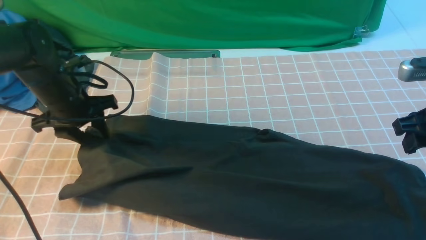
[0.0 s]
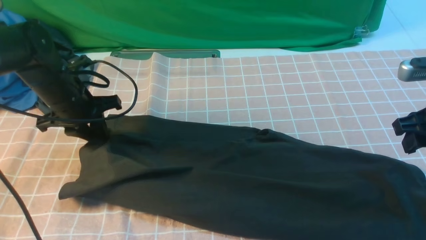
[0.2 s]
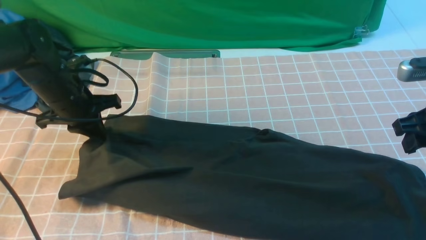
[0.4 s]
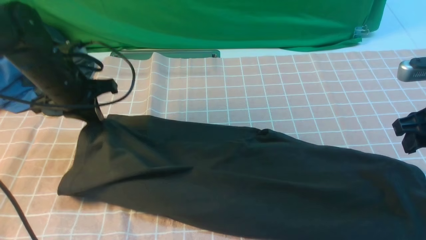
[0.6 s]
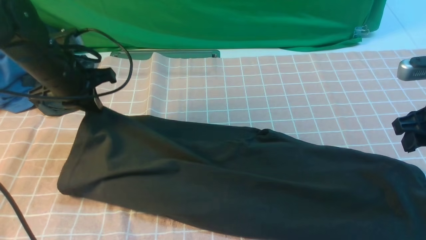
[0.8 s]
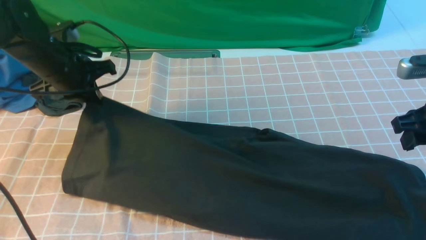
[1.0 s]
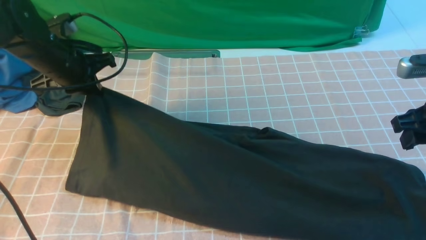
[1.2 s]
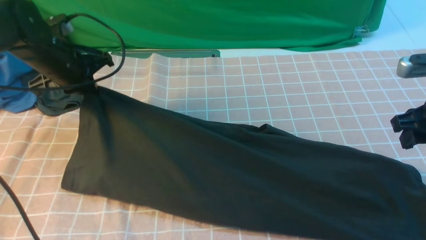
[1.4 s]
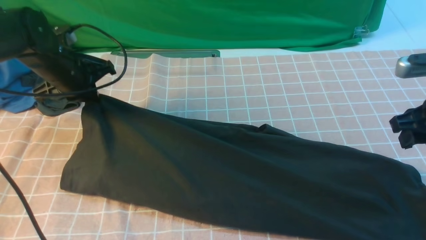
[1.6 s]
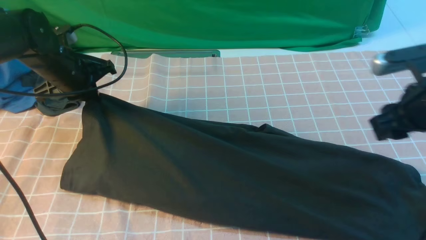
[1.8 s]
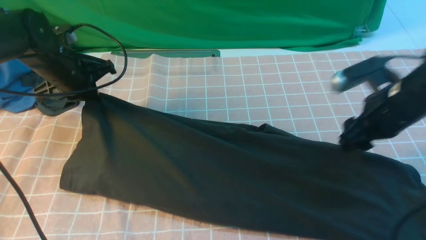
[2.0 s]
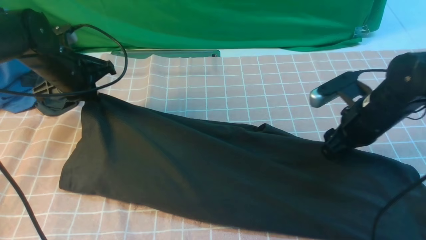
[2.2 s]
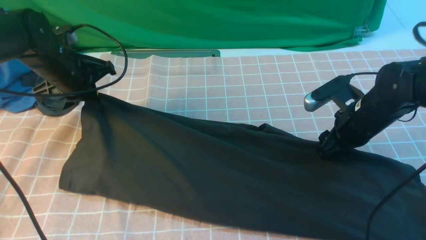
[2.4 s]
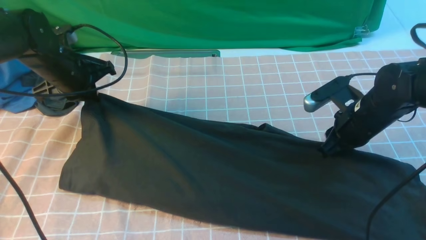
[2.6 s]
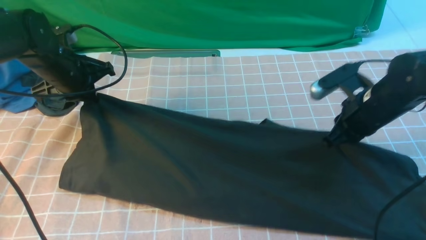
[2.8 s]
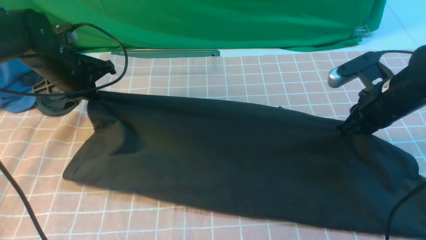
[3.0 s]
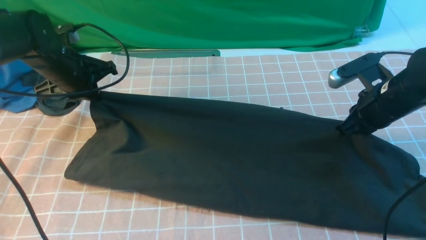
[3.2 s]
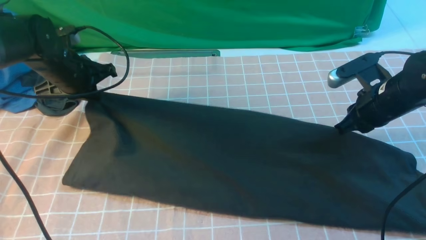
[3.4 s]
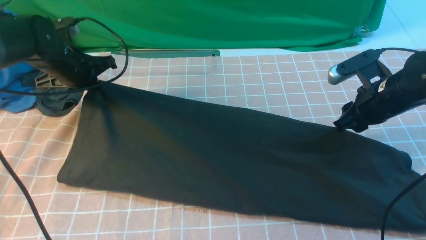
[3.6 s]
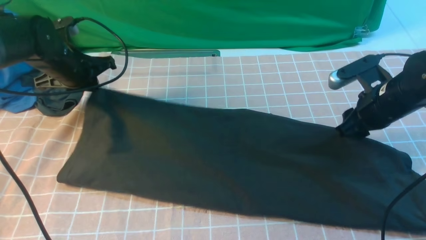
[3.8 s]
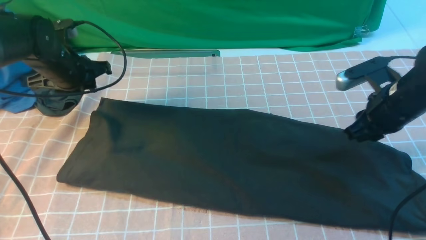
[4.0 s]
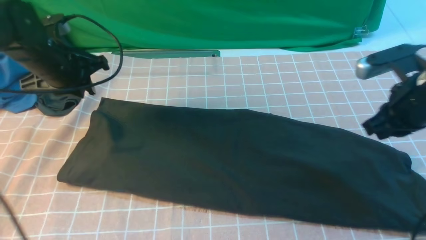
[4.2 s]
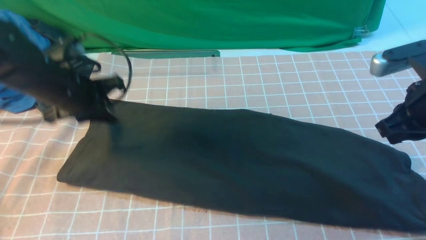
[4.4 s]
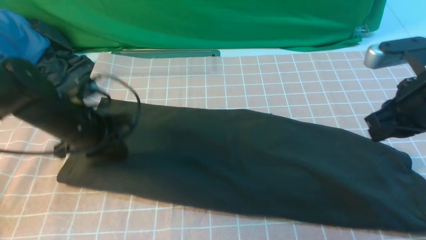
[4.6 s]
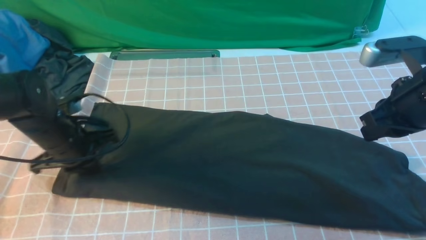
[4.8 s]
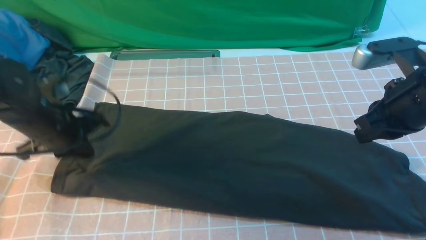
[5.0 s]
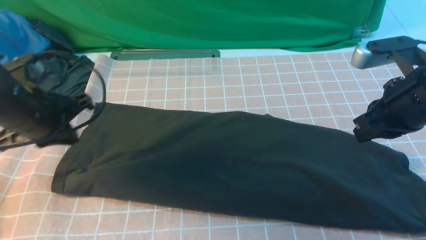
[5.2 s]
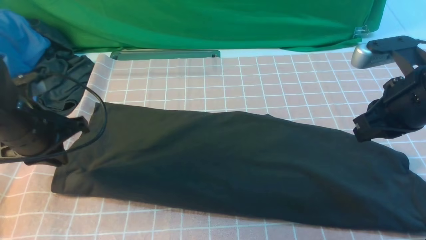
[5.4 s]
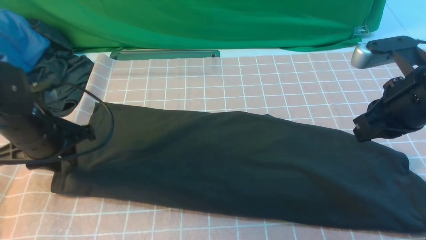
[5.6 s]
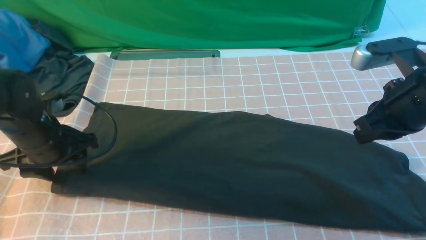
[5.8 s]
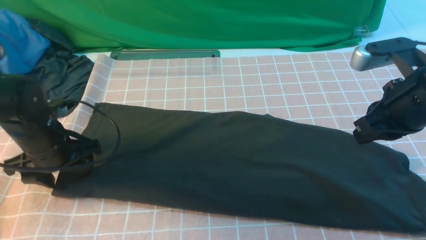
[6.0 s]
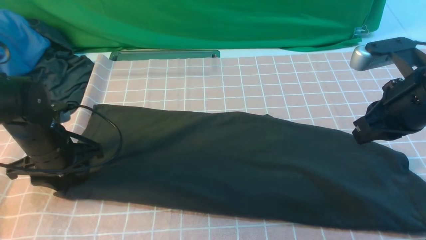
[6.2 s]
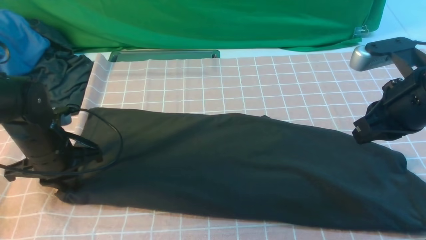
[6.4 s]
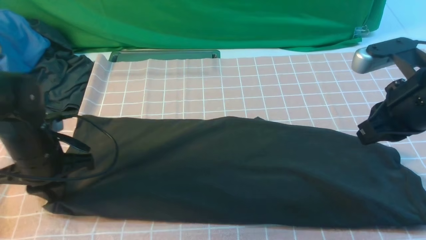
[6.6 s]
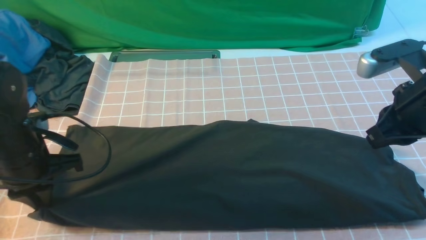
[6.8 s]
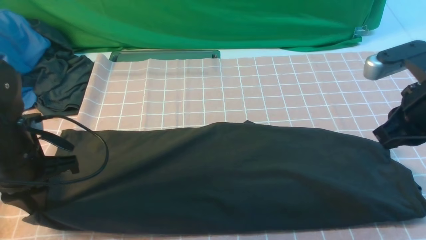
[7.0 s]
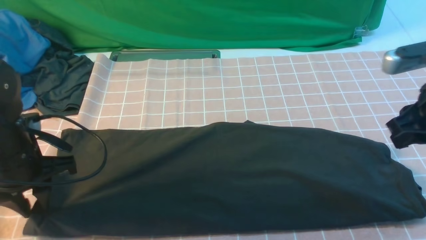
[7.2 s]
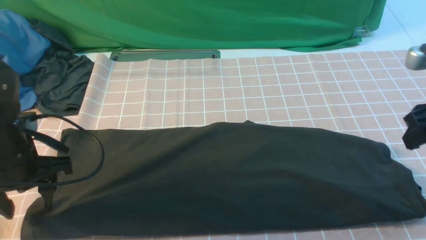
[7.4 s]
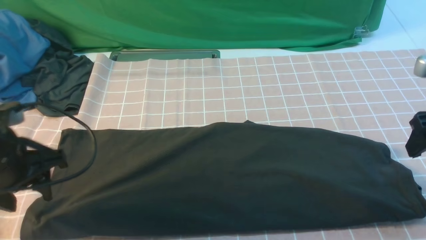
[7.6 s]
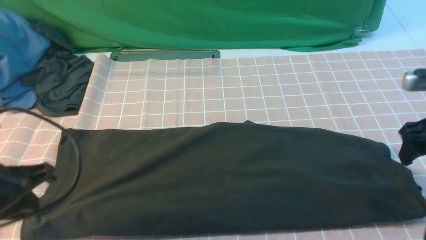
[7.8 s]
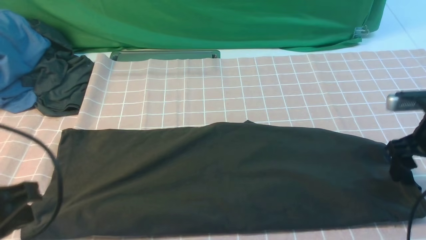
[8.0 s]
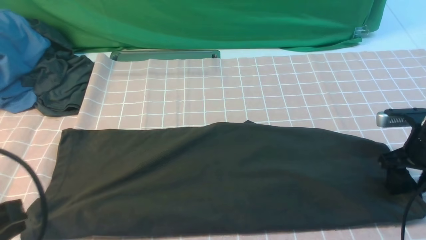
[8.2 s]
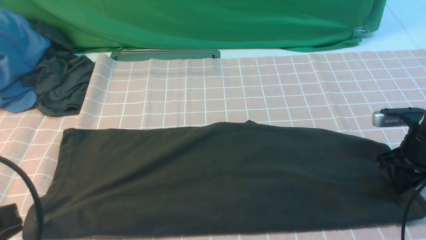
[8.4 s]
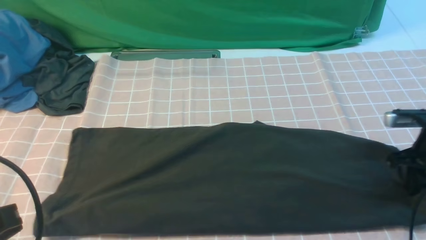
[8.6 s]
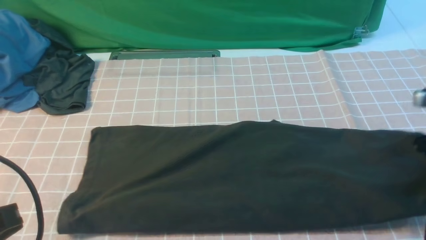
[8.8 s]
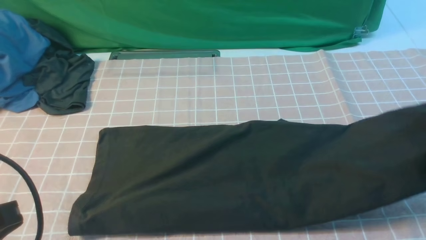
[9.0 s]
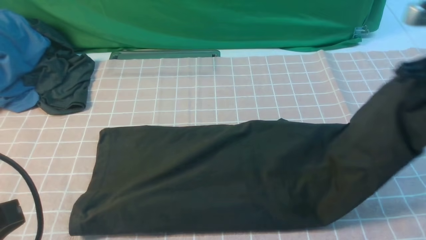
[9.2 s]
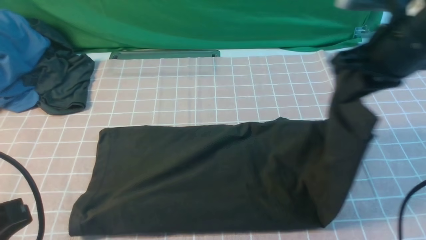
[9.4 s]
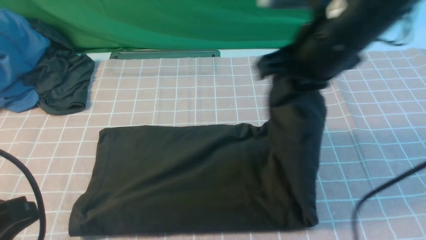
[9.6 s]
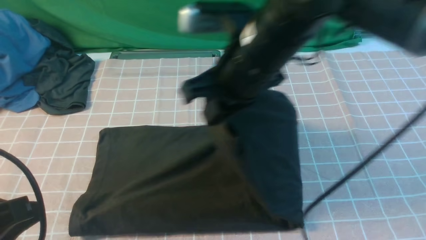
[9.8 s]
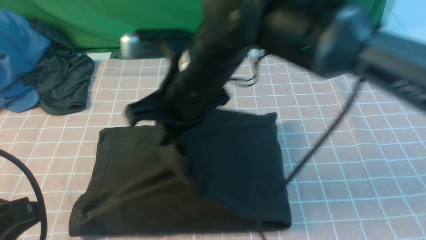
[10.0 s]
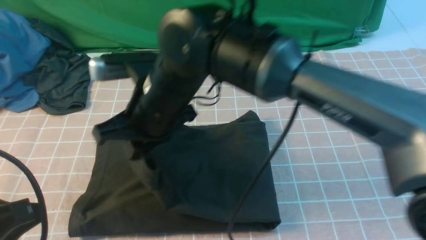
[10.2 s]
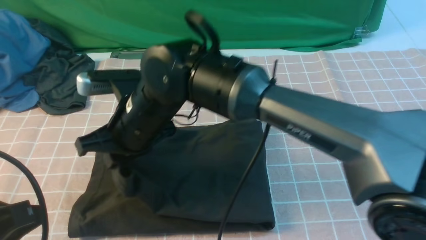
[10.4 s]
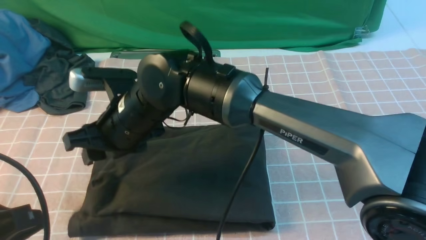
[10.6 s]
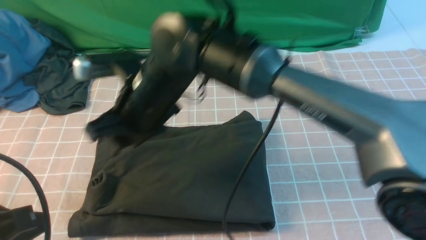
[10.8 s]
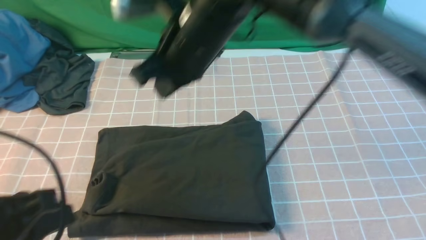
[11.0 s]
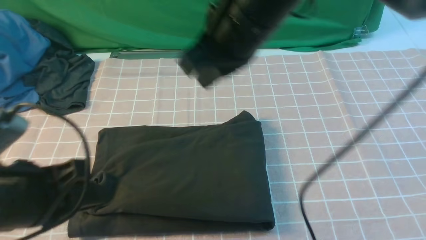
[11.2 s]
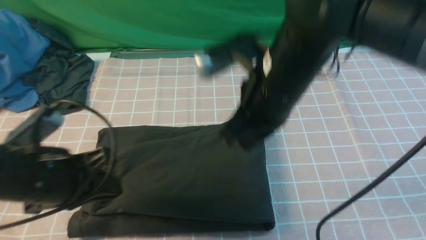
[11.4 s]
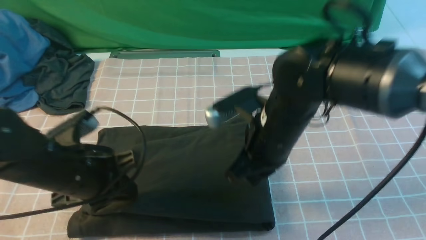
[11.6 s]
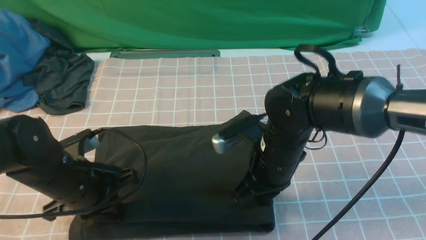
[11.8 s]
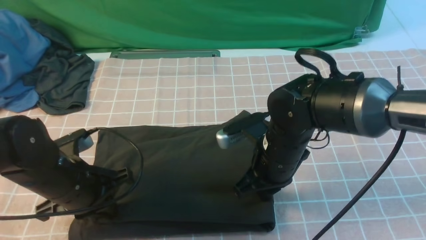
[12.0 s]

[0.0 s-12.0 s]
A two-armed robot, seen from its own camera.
Step, 0.0 to 8.6 s: use the right arm to clamp the right edge of the fabric.
Step, 8.8 to 10.8 s: use the right arm to drag the right edge of the fabric to the left and folds it over the left edge.
0.0 to 1.6 s: The left gripper closes.
1.6 to 3.0 s: The right gripper is displaced forward and downward by roughly 5 cm, and closes up.
3.0 to 4.4 s: The right gripper travels upward and backward by roughly 10 cm, and opens, then closes once more. The left gripper shifts roughly 5 cm backward.
4.4 to 6.0 s: The left gripper shifts by roughly 5 cm, and opens its fingers.
6.0 to 7.6 s: The left gripper goes about 15 cm backward and upward, and closes, then reopens. The right gripper is displaced to the right by approximately 10 cm, and opens up.
7.6 to 9.0 s: The right gripper travels downward and back again, roughly 10 cm each way, and closes up. The left gripper heads backward, covering roughly 15 cm, and closes up.
9.0 to 10.4 s: The right gripper heads to the left, covering roughly 40 cm.
10.4 to 12.0 s: The left gripper is displaced forward and downward by some 20 cm. The right gripper heads to the right, covering about 20 cm, and closes up.

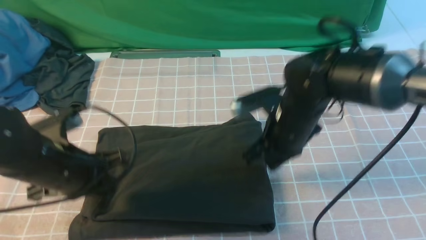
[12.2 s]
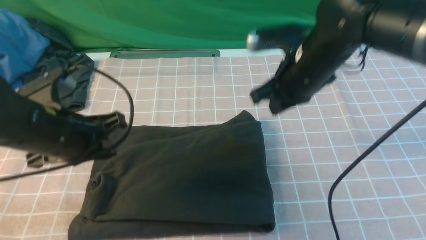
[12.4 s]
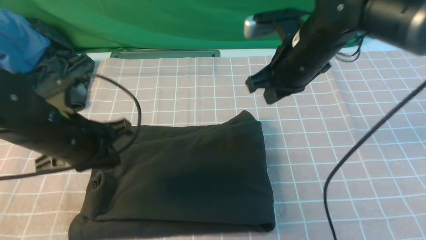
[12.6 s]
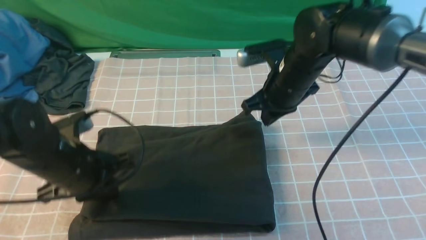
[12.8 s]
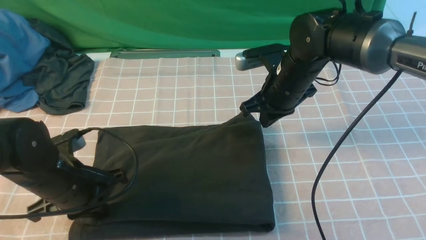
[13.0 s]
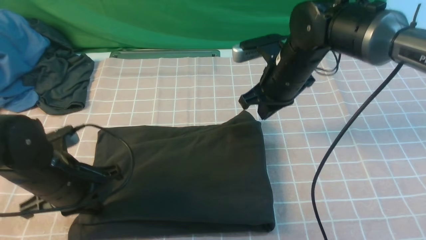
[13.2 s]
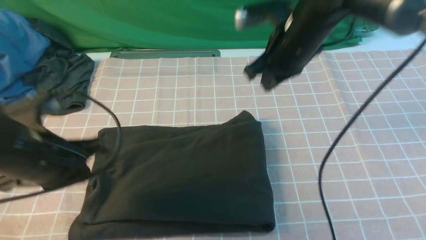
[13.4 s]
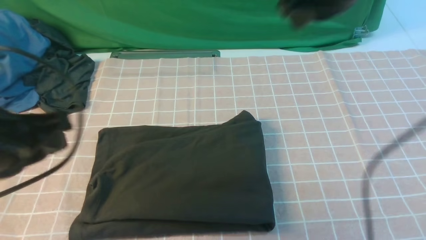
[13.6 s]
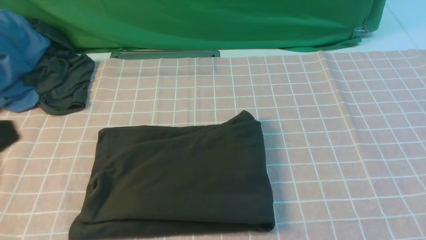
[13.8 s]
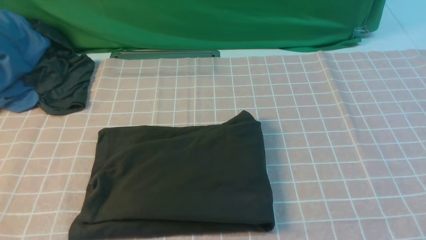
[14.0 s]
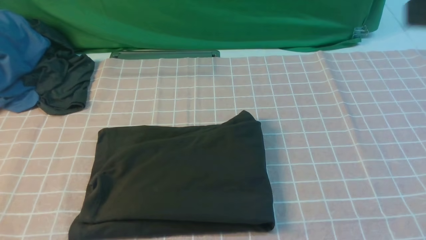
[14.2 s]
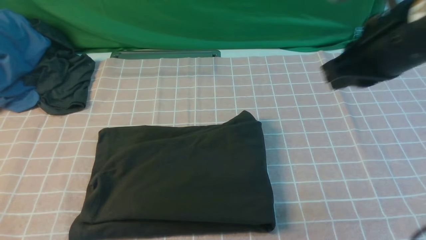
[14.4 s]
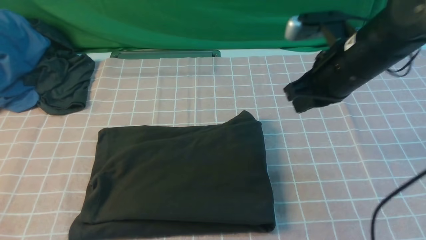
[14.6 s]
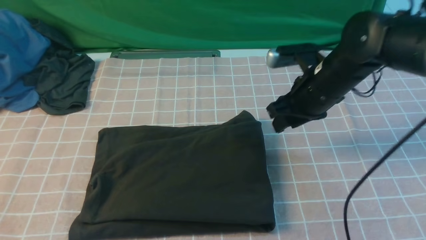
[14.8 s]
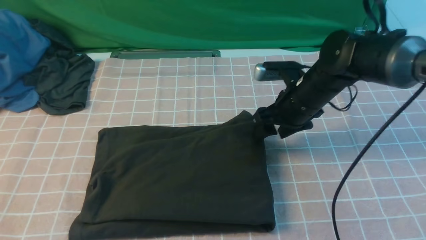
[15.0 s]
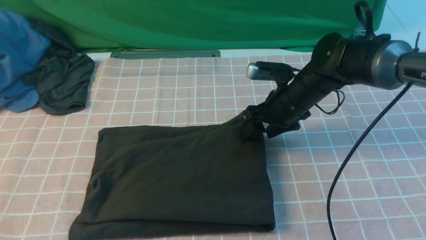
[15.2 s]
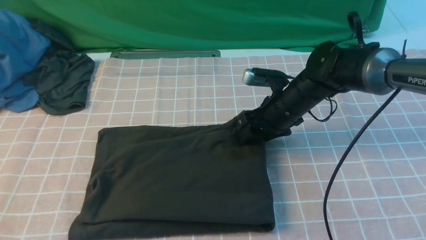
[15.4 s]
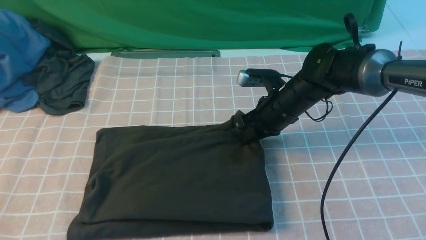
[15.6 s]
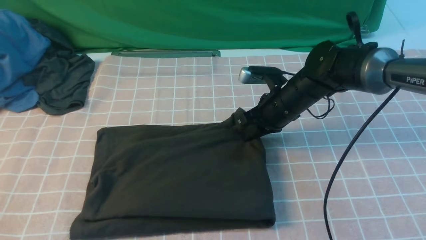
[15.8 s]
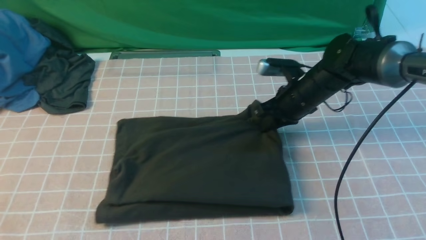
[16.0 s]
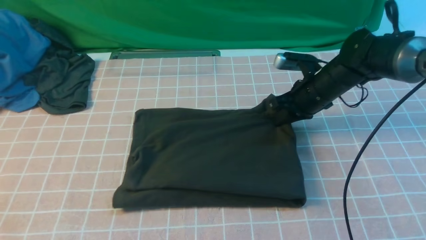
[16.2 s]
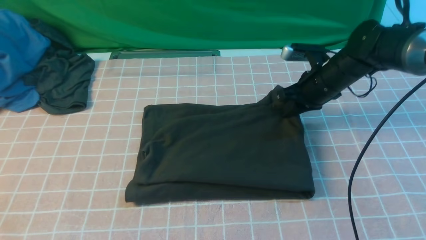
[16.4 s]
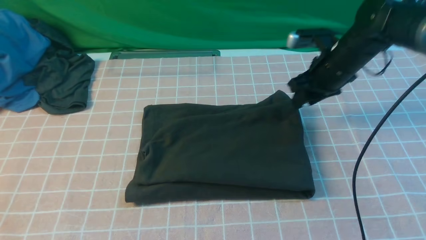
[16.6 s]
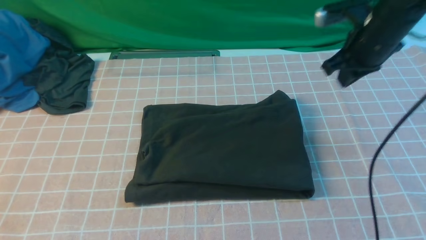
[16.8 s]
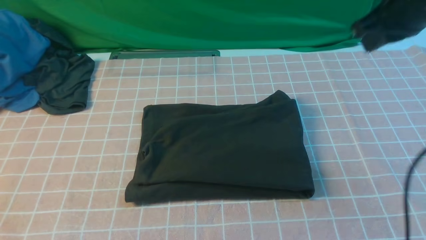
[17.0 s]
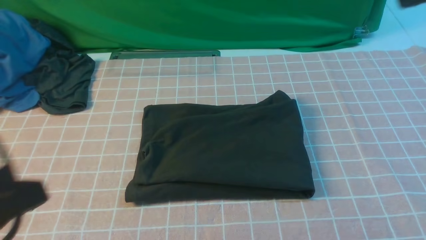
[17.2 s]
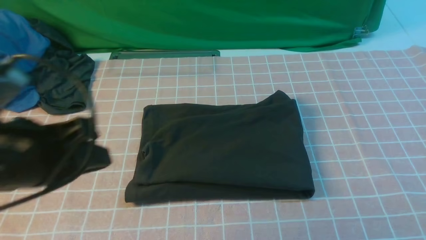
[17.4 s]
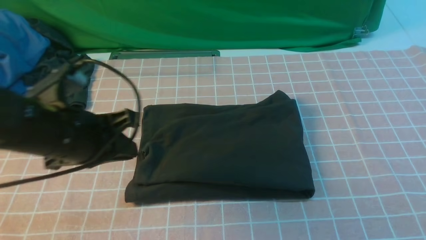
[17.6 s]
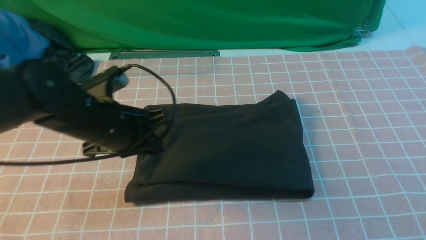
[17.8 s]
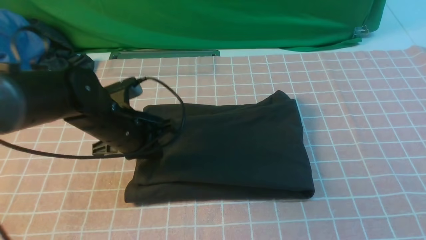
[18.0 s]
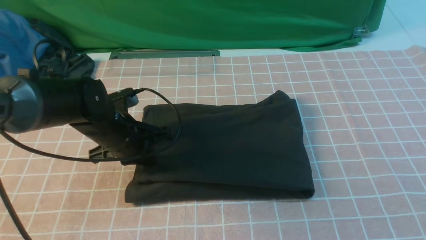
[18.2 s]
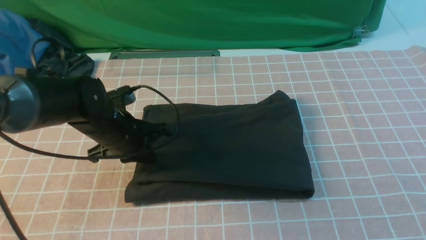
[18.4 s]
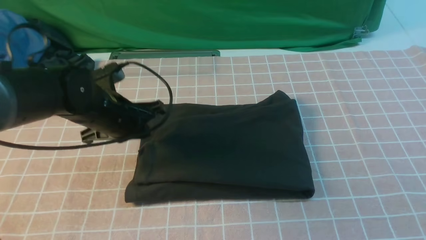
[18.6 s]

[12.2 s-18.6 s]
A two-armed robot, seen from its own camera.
12.2 to 13.8 s: The right gripper is displaced upward by approximately 30 cm; the left gripper goes approximately 20 cm backward and upward.
13.8 to 15.4 s: The right gripper heads downward and forward, covering approximately 40 cm, and opens up. The left gripper moves backward, approximately 5 cm.
15.4 to 17.0 s: The right gripper goes approximately 25 cm upward and to the right, and closes.
17.0 to 18.6 s: The left gripper shifts some 35 cm forward and downward; the right gripper moves backward, about 25 cm.
